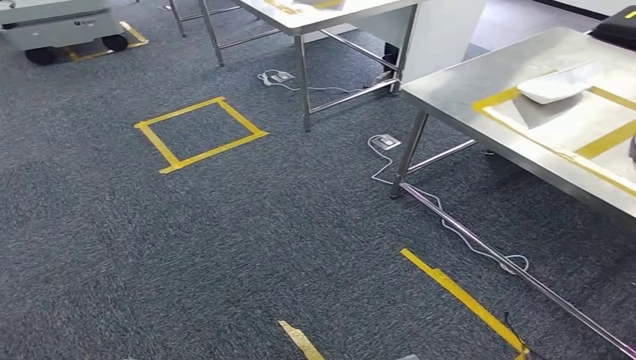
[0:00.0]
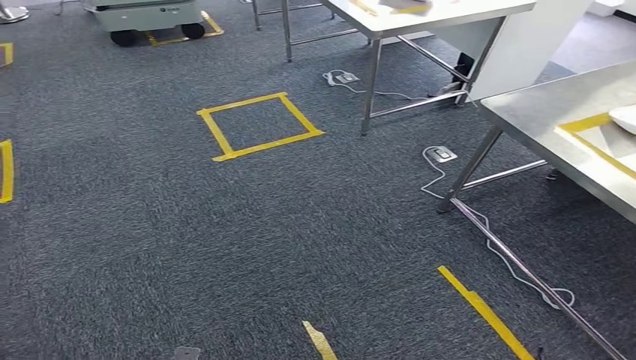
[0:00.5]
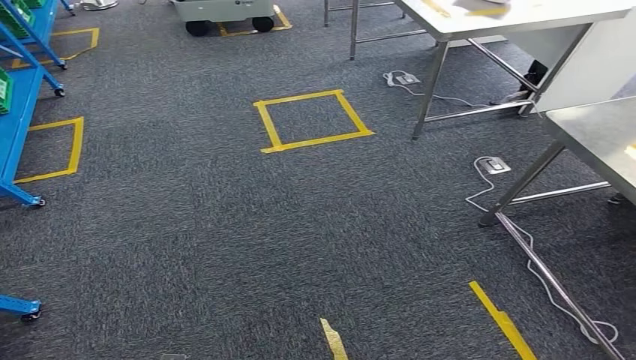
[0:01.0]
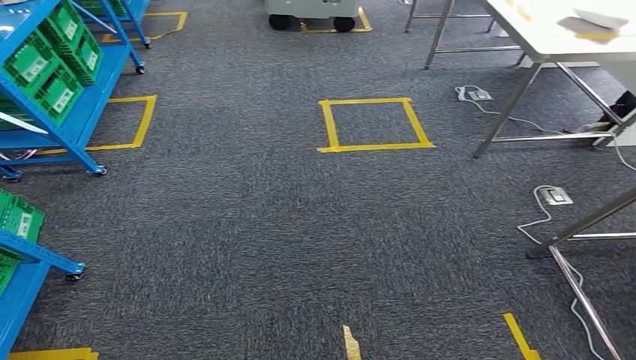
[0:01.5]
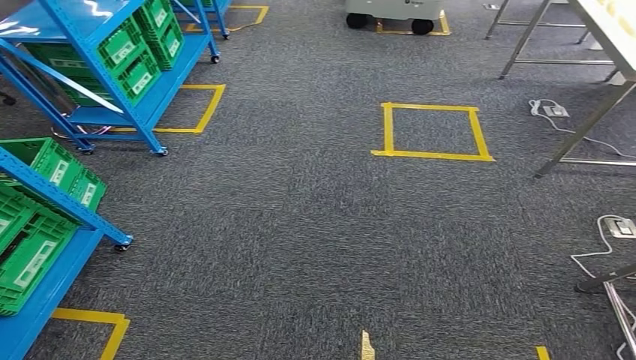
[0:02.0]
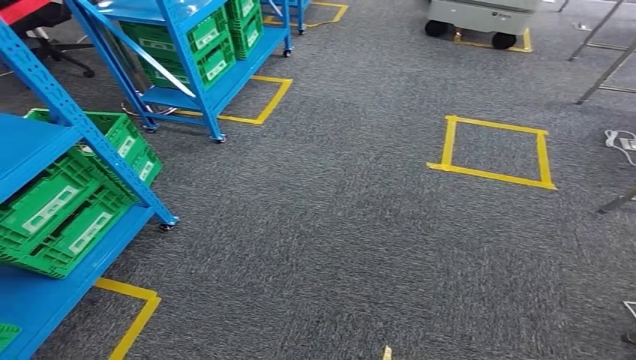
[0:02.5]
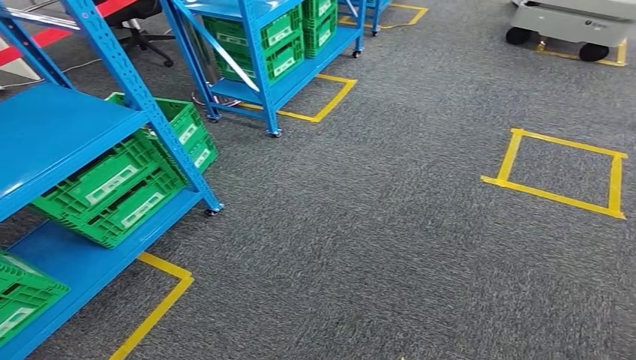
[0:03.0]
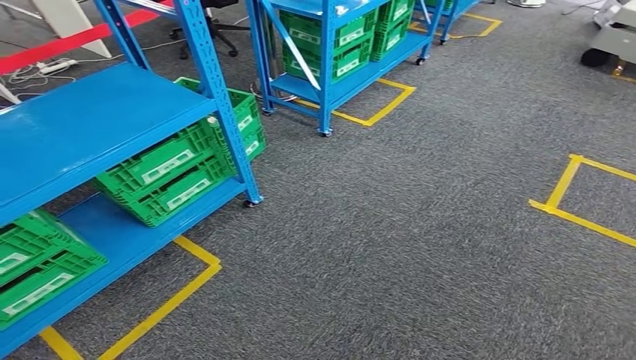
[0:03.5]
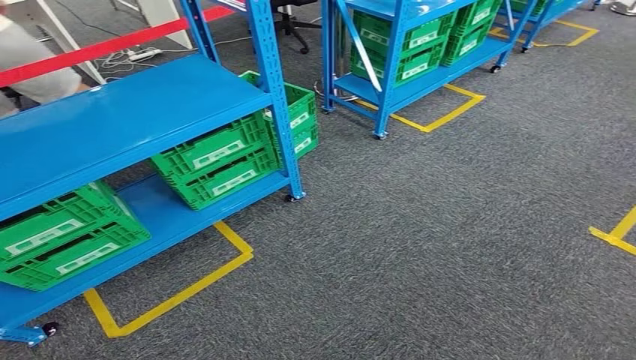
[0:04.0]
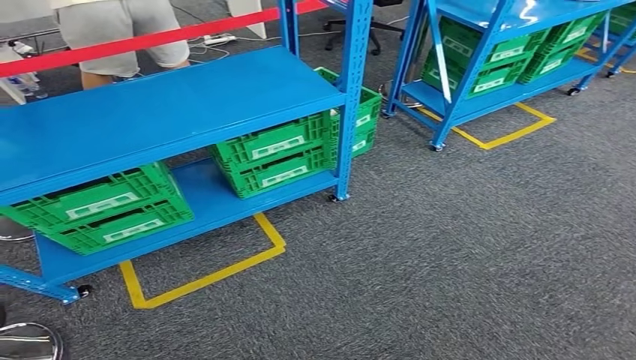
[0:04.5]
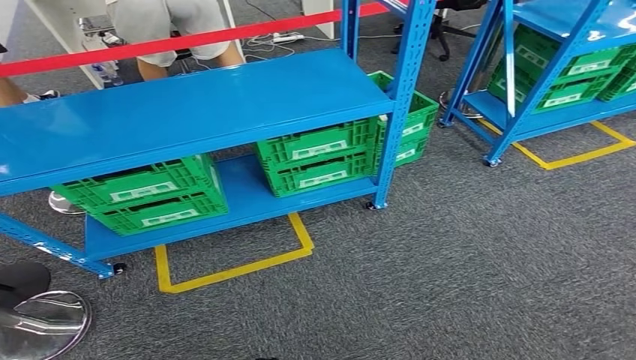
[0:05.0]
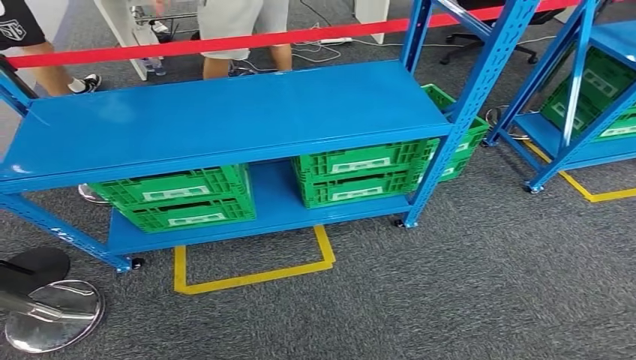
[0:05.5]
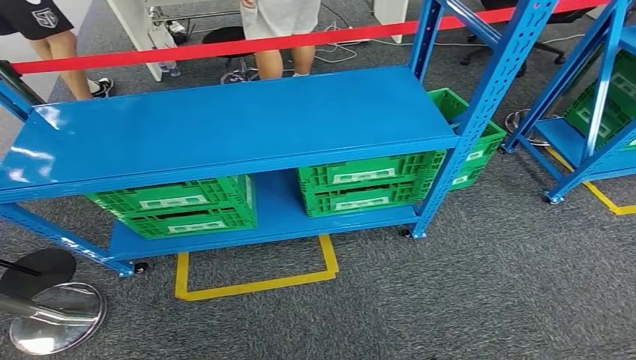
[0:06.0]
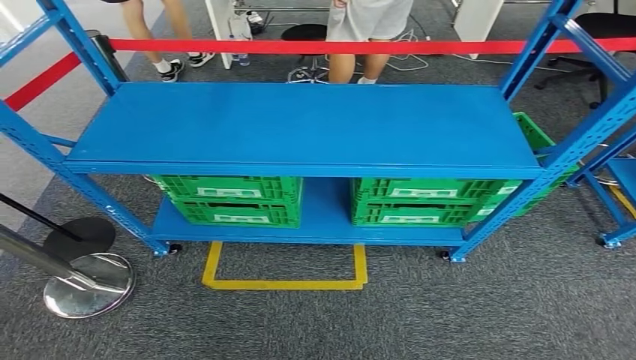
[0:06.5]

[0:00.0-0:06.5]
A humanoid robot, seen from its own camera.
Step, 0:00.0 to 0:06.5: Return to the initial position at the workbench.
